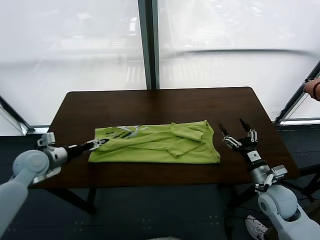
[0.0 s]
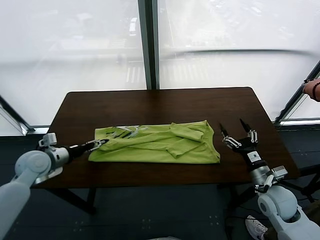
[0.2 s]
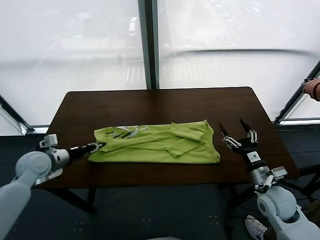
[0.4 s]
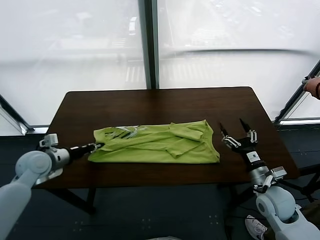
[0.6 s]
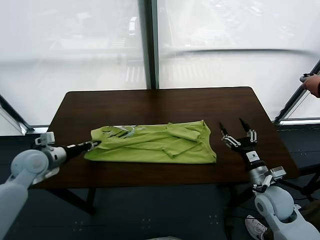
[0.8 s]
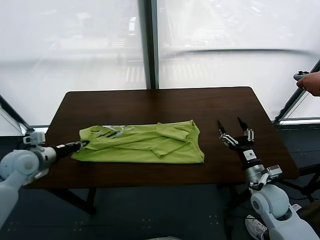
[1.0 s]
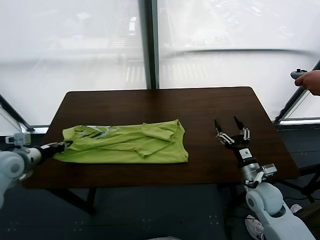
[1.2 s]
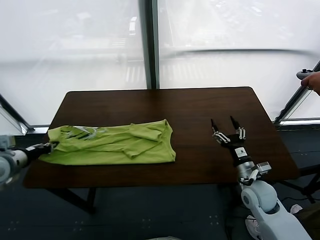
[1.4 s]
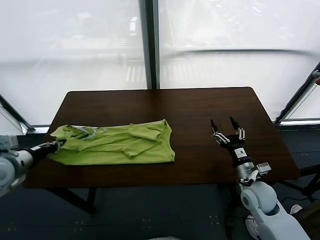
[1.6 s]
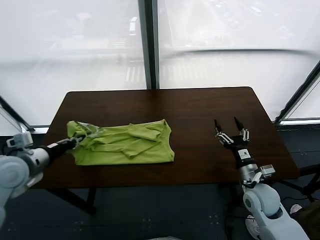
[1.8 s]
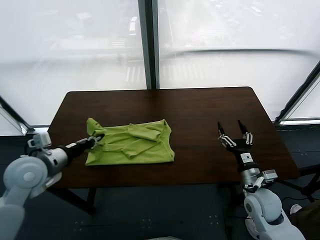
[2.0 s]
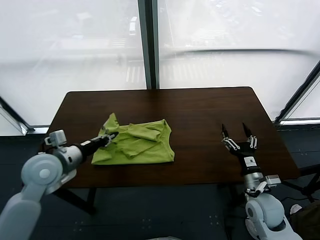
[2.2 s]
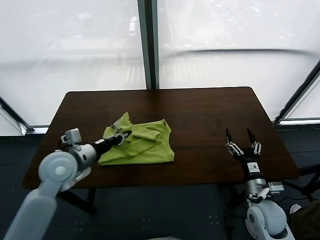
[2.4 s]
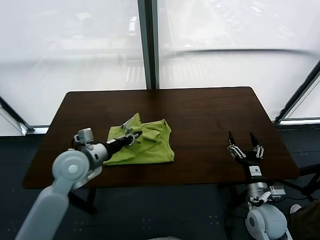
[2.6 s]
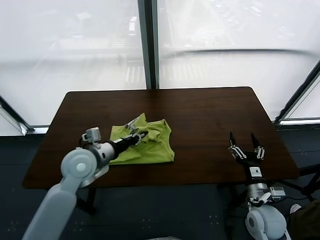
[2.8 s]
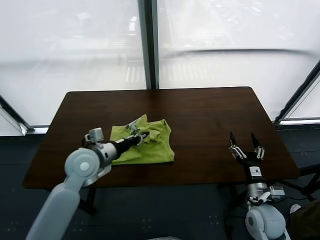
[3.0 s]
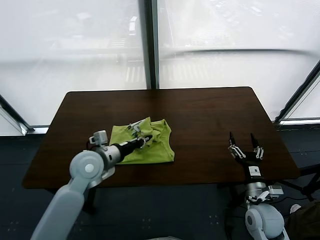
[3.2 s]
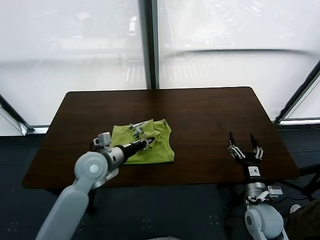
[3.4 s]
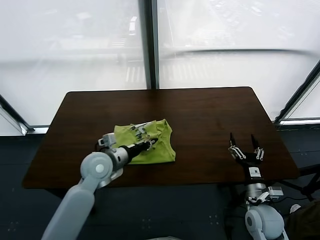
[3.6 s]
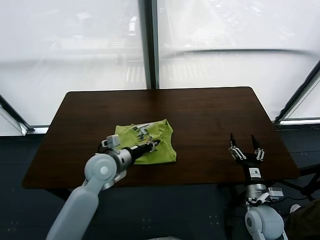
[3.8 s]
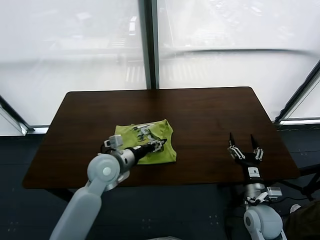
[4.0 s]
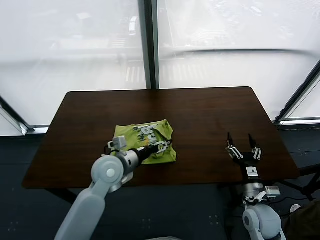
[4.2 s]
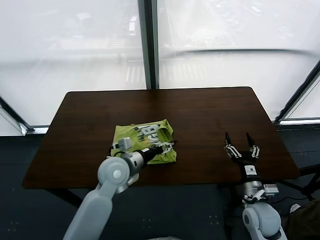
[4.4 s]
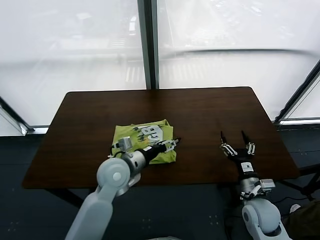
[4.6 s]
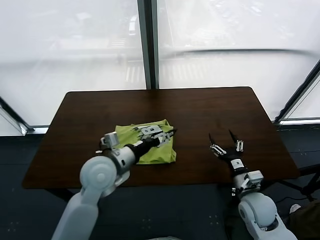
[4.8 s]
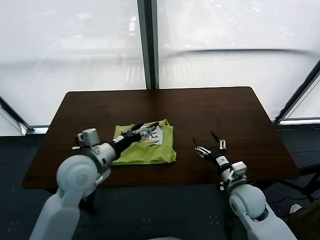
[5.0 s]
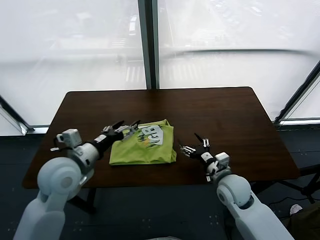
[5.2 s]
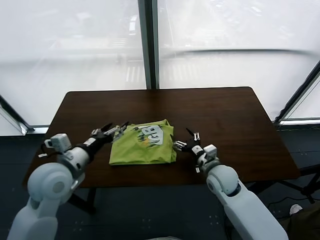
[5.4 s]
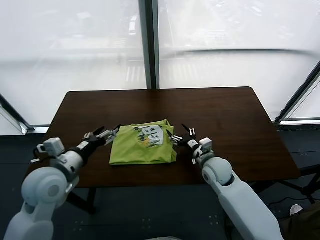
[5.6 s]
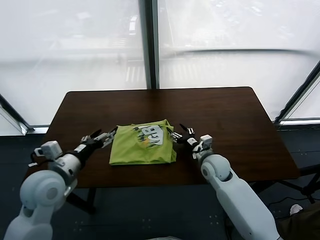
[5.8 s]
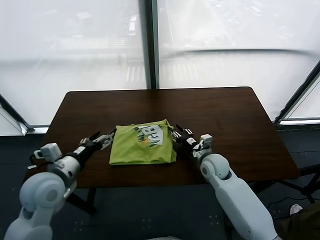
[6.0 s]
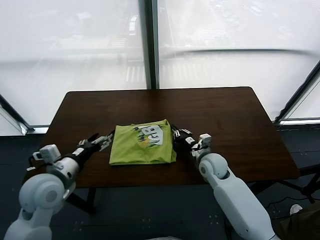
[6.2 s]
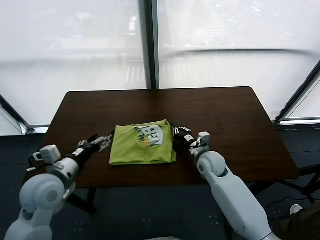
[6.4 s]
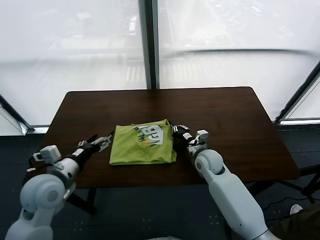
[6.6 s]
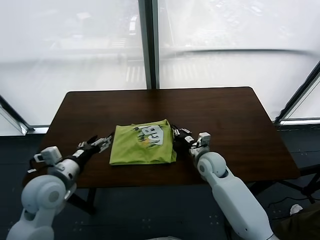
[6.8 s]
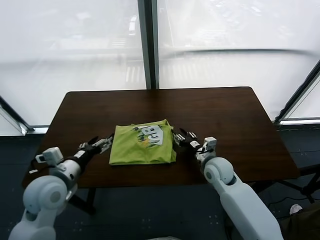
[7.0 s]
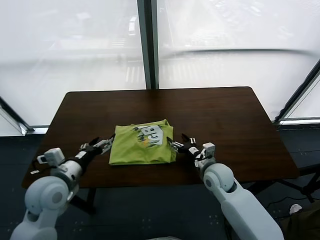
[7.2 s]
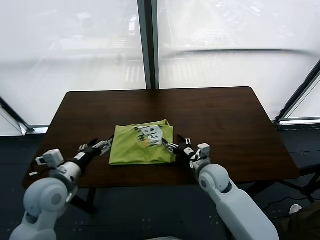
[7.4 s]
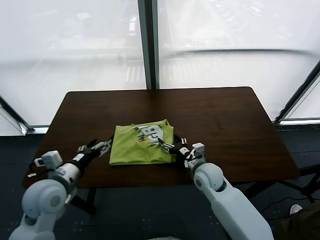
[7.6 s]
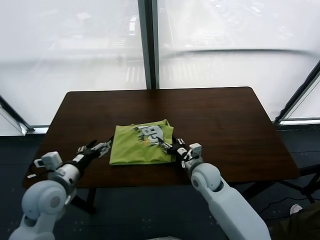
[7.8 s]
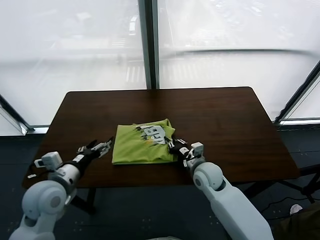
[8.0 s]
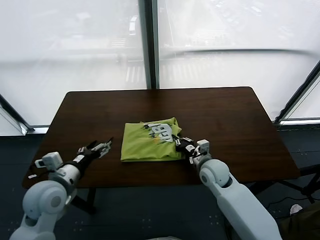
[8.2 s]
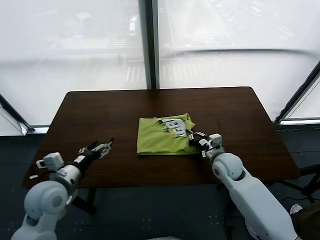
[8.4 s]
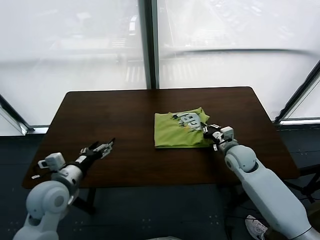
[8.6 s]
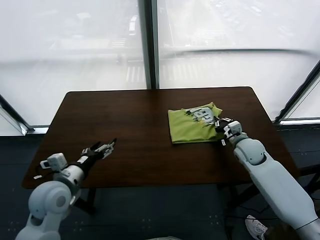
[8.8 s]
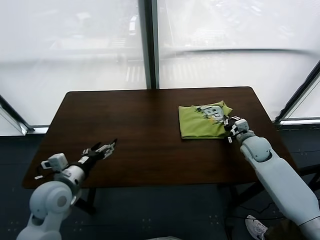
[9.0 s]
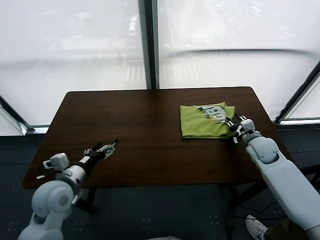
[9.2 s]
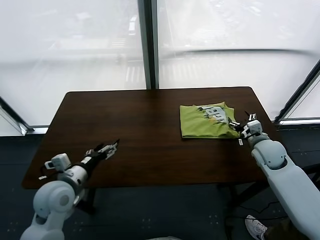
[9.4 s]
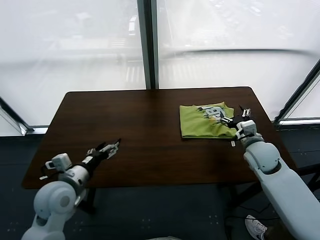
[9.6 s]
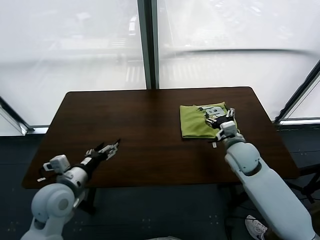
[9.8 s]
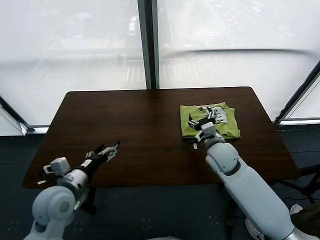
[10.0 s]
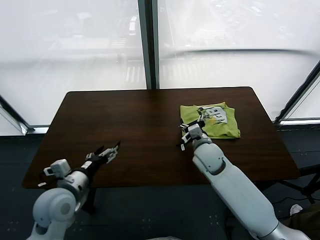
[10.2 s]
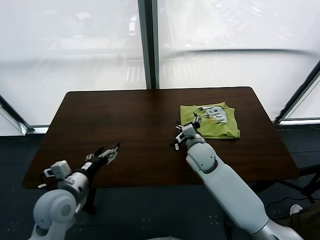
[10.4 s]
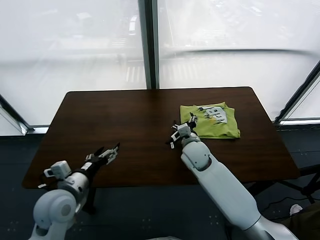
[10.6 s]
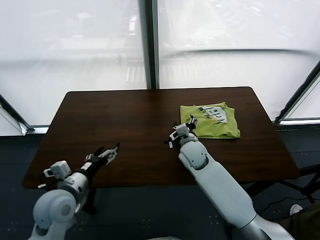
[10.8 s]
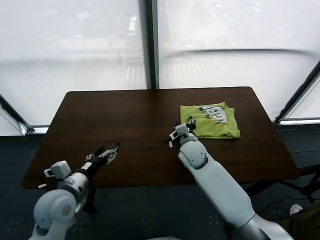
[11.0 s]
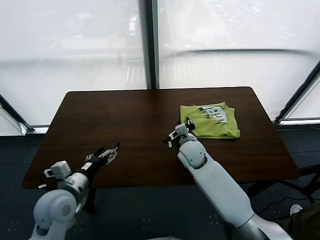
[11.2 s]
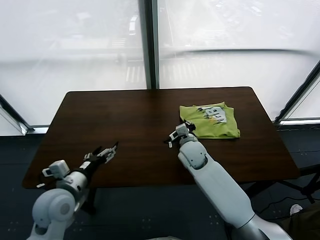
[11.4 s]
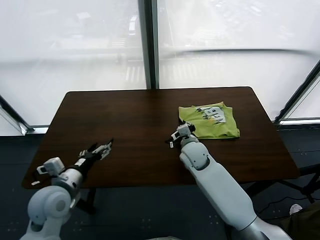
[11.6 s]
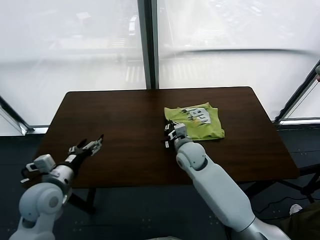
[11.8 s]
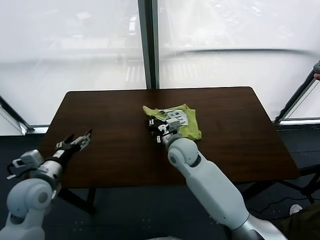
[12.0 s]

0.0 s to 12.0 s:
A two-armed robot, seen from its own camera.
Task of the whole recording: fold and organize the clothes.
Step, 0.6 to 4.4 s: use the left gripper to drag the left edge of the fabric to the left and folds it over the right edge.
Step, 4.8 to 9.2 s: Drag the clothes to the center of the table.
0.0 to 1.6 s: The left gripper moves upward and backward, some 10 cm, and closes its fingers.
1.6 to 3.0 s: The right gripper heads backward, covering about 5 cm, while the left gripper goes about 20 cm to the right.
3.0 to 4.4 s: The left gripper shifts some 10 cm to the right, and opens its fingers.
4.4 to 6.0 s: The right gripper goes about 20 cm forward and to the left, and closes its fingers. Meanwhile the left gripper goes approximately 20 cm to the left, backward and upward.
6.0 to 7.6 s: The right gripper moves approximately 5 cm, and opens up.
7.6 to 9.0 s: The right gripper moves to the right and forward, approximately 20 cm, and closes up.
9.0 to 10.4 s: The right gripper is displaced to the left by some 25 cm, and opens up.
10.4 to 12.0 s: Both grippers move to the left, some 5 cm. The right gripper closes its fingers.

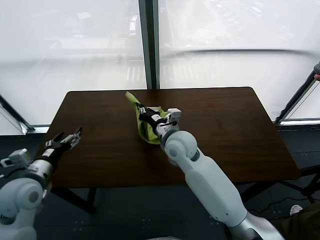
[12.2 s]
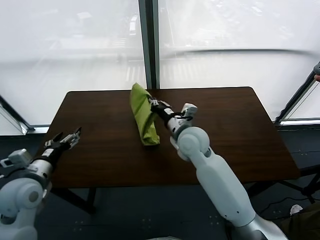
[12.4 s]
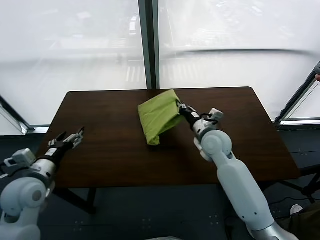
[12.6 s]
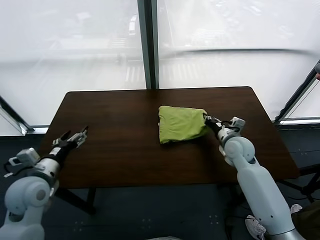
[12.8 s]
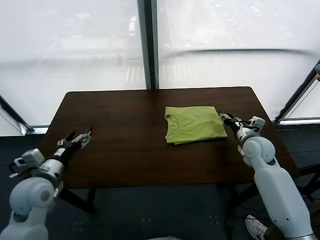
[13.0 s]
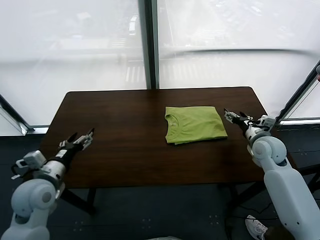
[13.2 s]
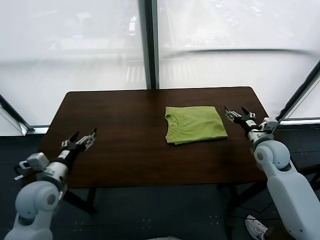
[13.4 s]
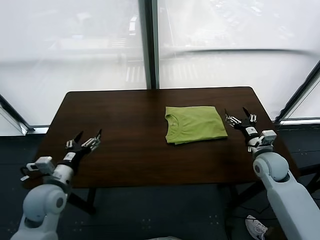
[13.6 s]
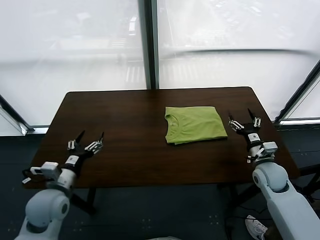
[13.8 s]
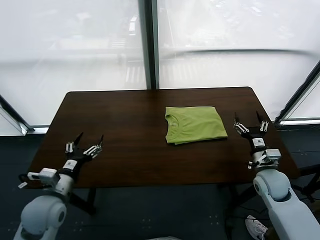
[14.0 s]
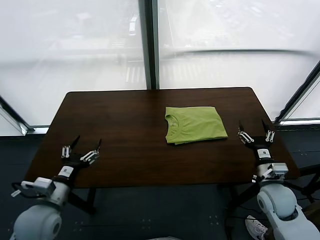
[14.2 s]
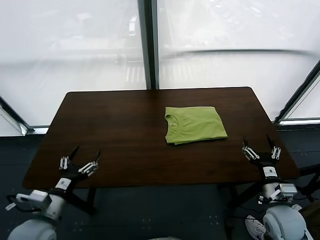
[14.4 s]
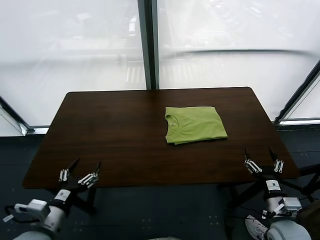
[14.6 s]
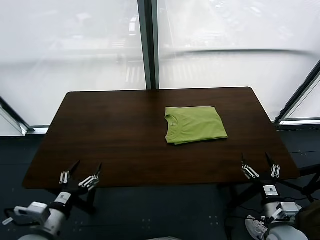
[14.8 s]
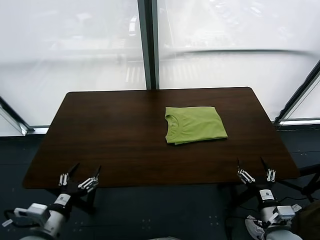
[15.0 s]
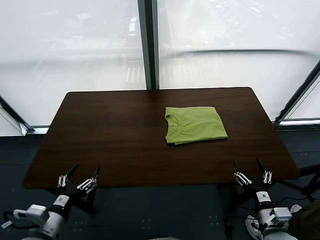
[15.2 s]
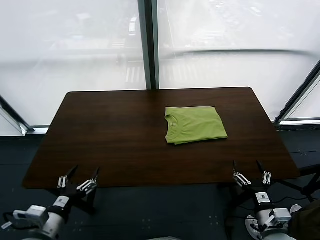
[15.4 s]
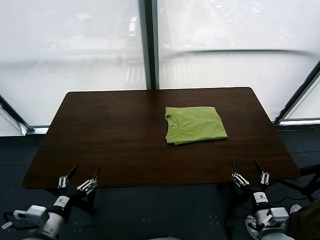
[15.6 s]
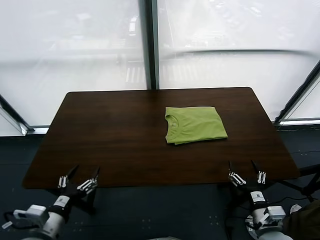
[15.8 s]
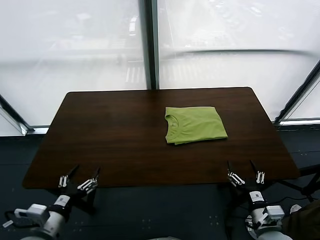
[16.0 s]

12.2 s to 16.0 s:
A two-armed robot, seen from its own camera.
Task of the whole recording: fold and organize the clothes.
12.2 to 13.4 s: The right gripper goes some 30 cm to the right, and opens.
13.4 to 14.8 s: The right gripper is displaced backward by some 25 cm. Meanwhile the left gripper goes roughly 10 cm backward.
14.8 to 16.0 s: There are only small adjustments of the grippers.
